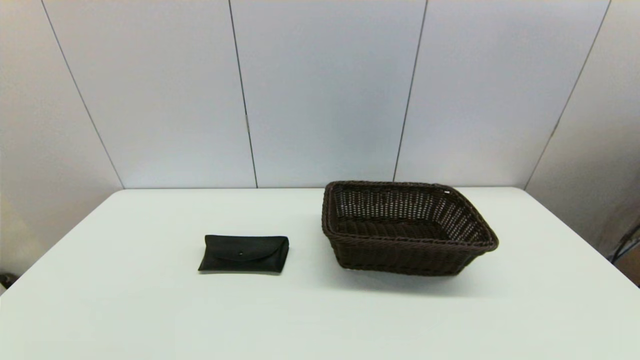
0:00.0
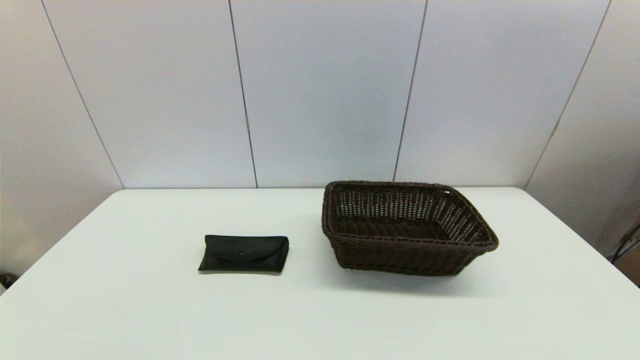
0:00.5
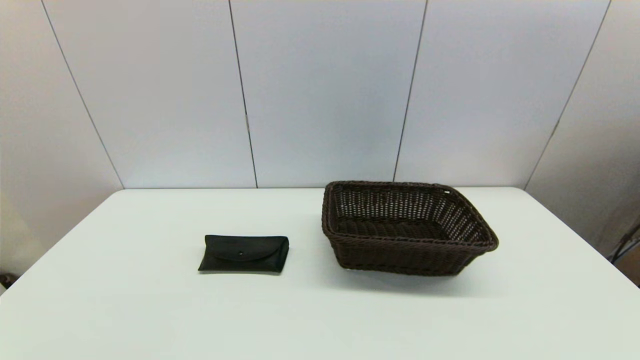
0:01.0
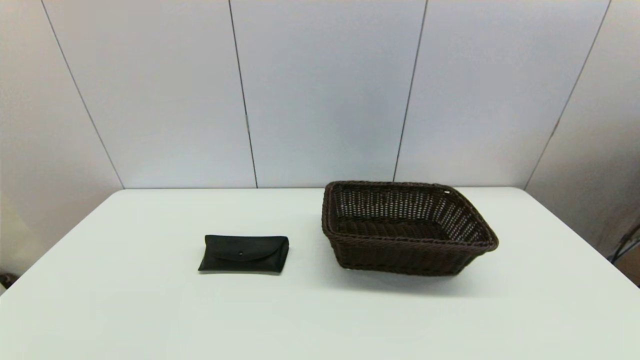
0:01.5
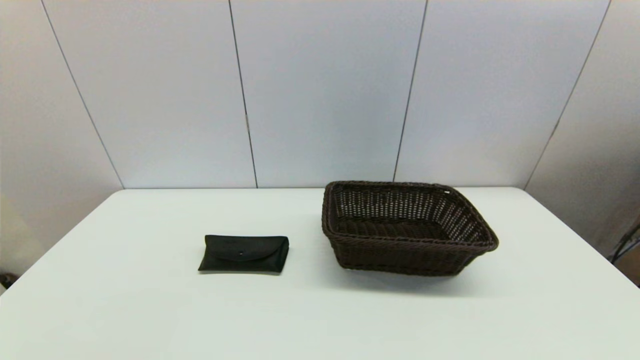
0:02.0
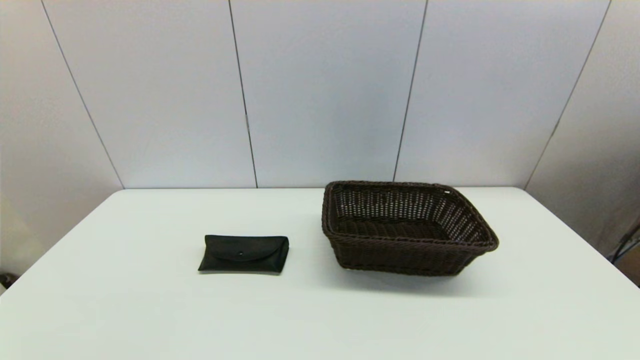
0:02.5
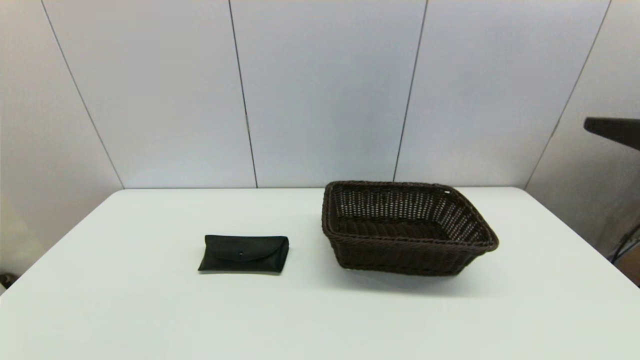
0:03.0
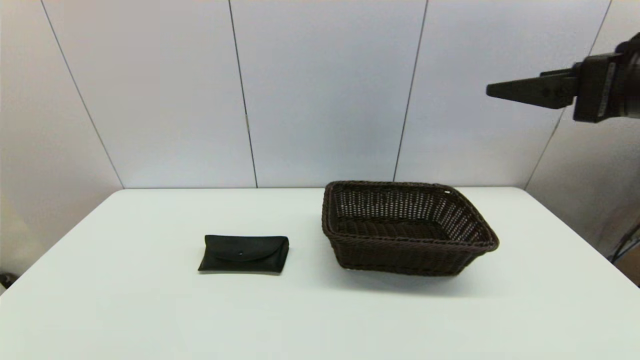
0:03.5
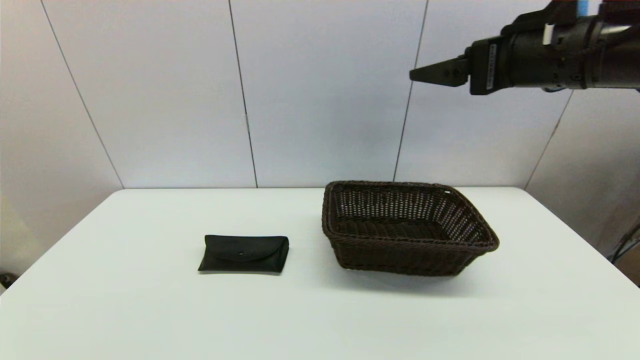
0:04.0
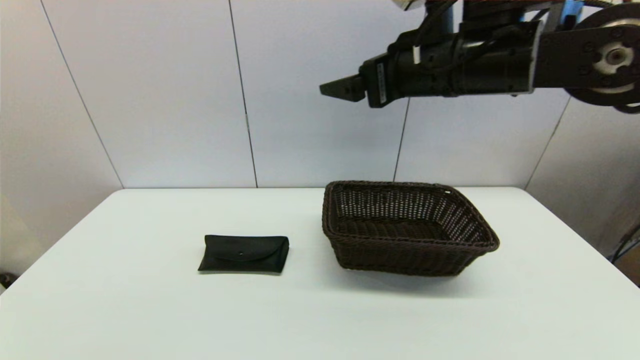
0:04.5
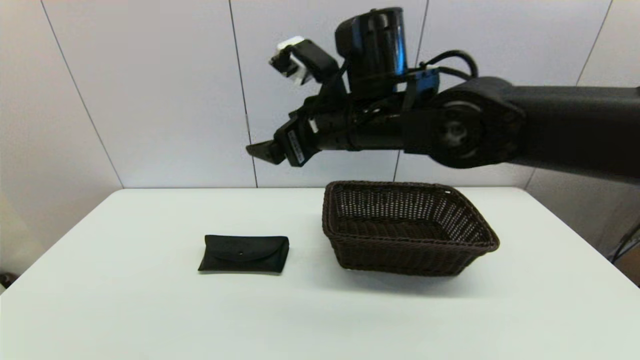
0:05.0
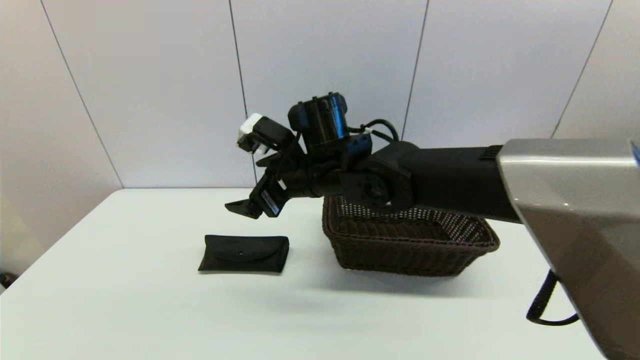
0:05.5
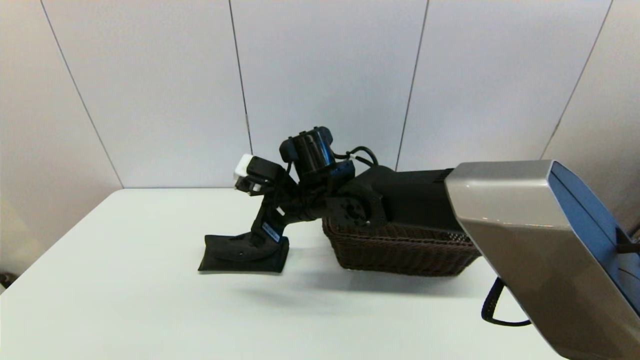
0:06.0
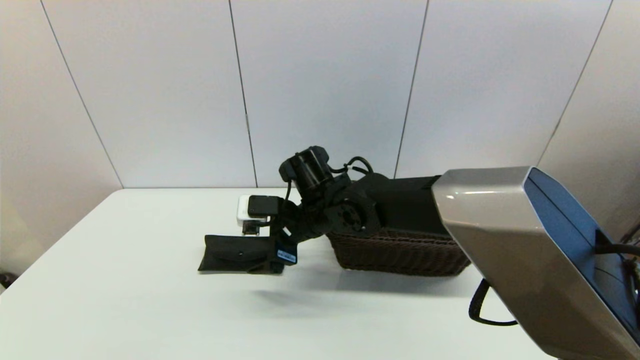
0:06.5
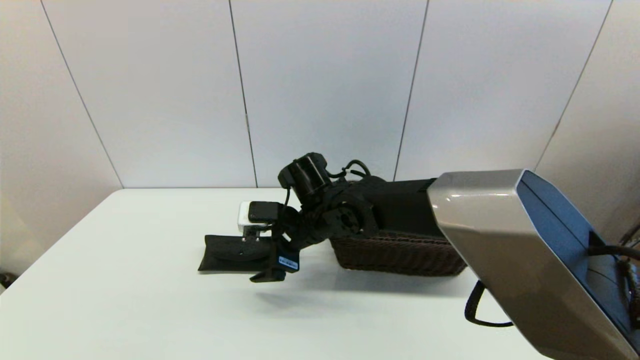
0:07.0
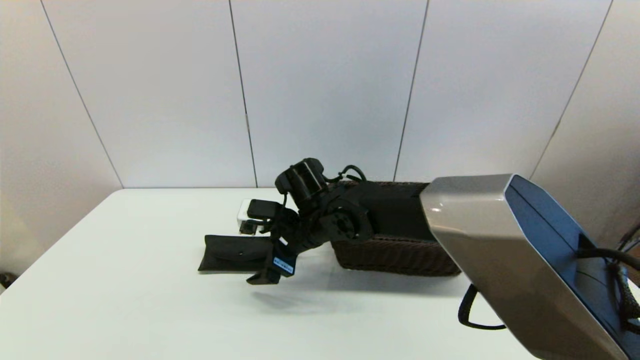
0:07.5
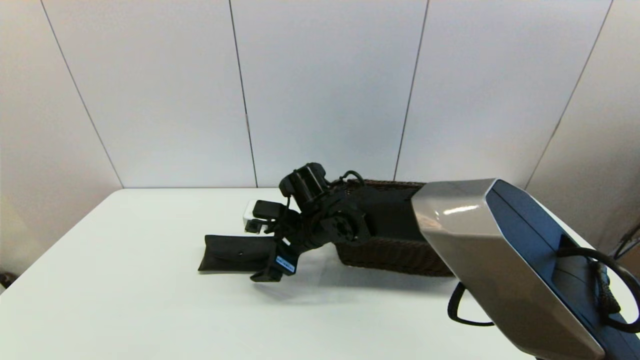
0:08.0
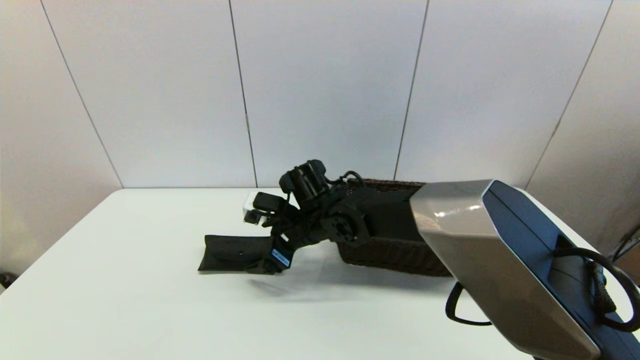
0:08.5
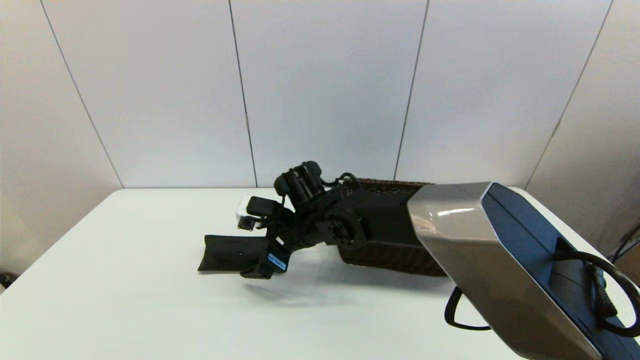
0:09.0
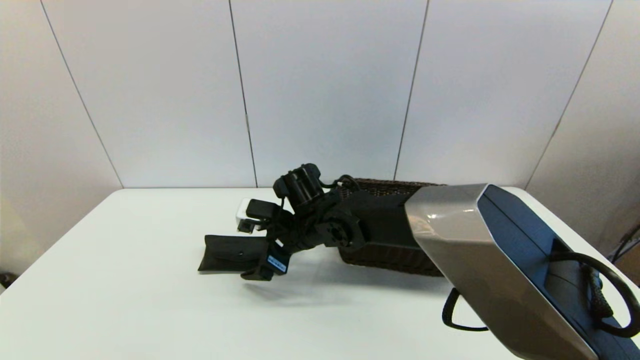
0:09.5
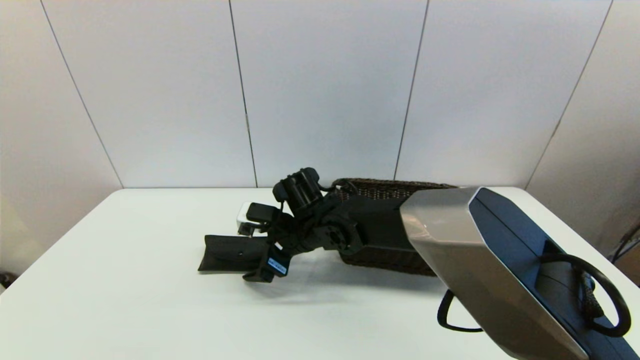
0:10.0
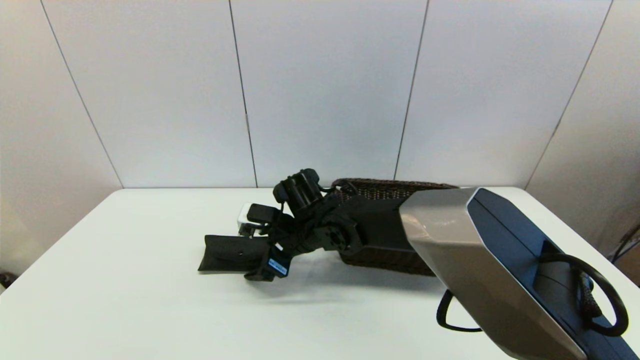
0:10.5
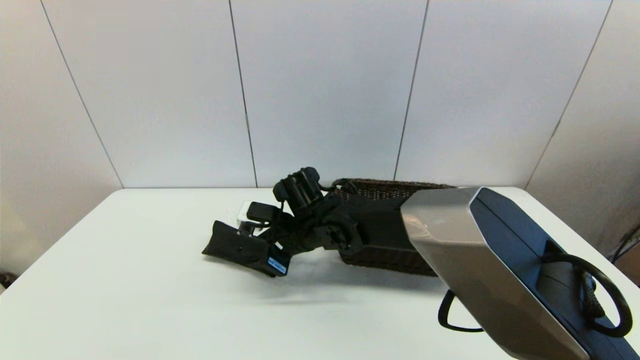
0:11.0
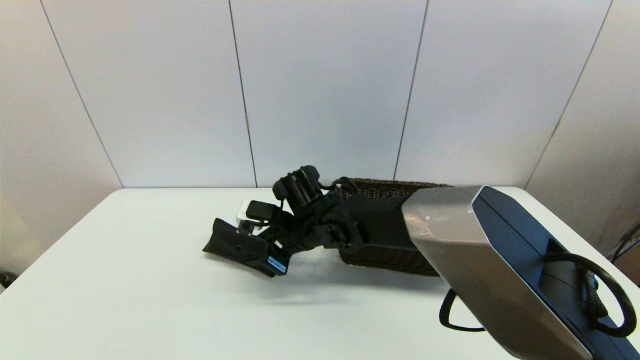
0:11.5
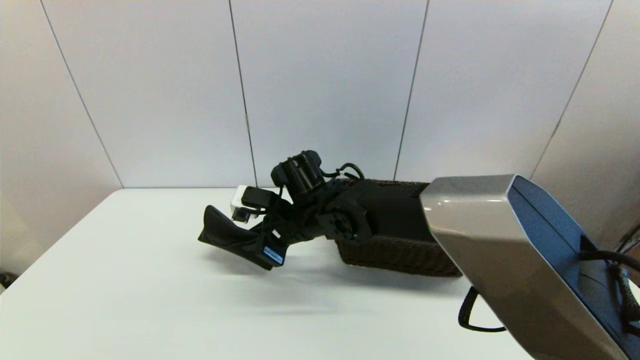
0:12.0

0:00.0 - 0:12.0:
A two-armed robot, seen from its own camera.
Step, 0:03.0 - 0:11.0: Grasp the glasses case with right gripper.
0:02.0 - 0:04.0: The right gripper heads forward, upward and to the left, covering approximately 35 cm.
0:04.0 - 0:06.0: The right gripper shifts approximately 30 cm to the left and downward.
0:06.0 - 0:08.0: The right gripper shifts approximately 5 cm downward.
0:08.0 - 0:10.0: The grippers make only small movements.
0:10.0 - 0:12.0: The right gripper closes up.

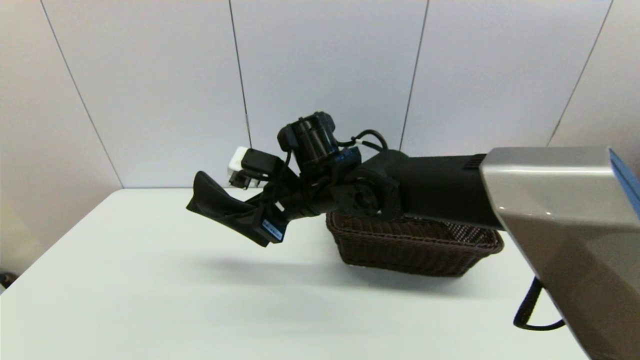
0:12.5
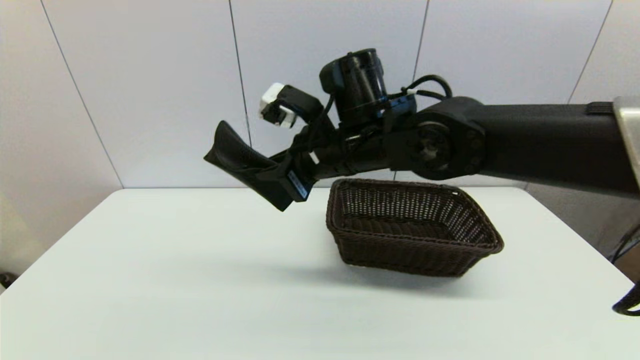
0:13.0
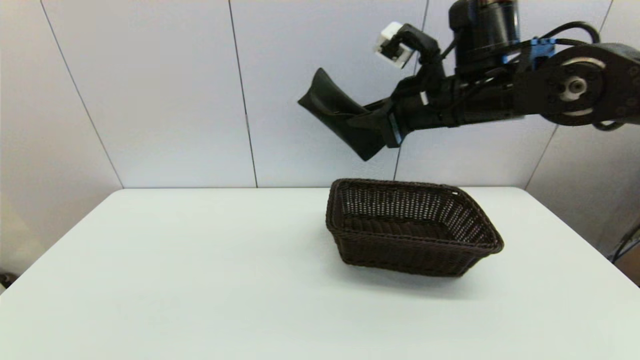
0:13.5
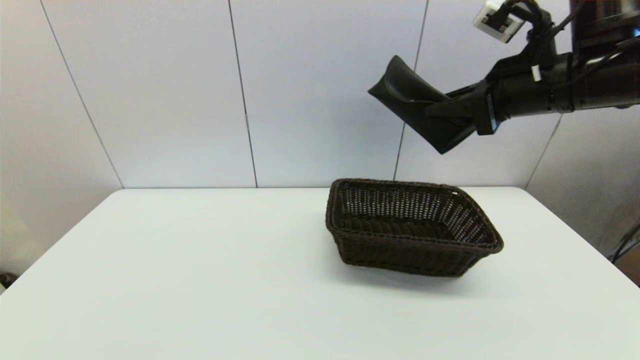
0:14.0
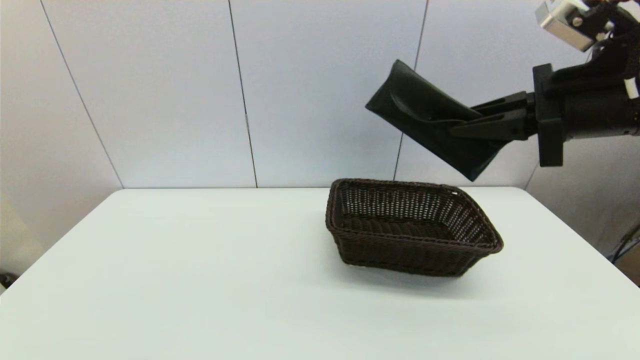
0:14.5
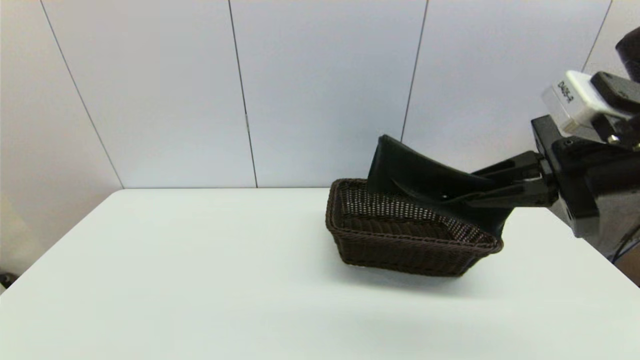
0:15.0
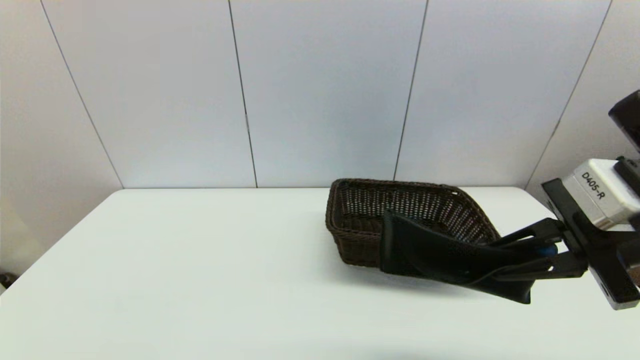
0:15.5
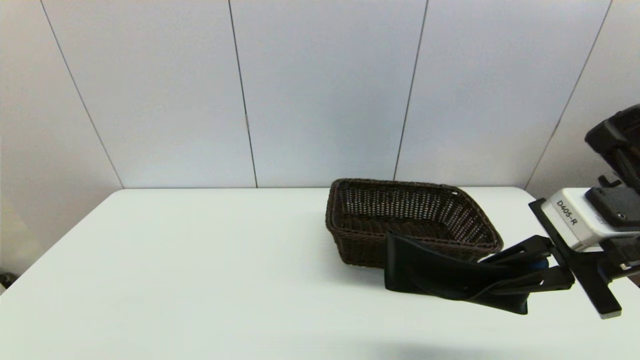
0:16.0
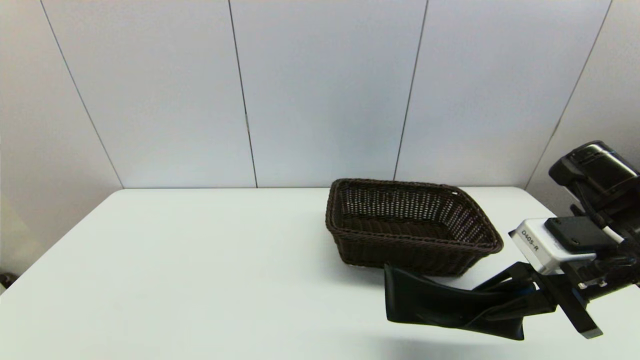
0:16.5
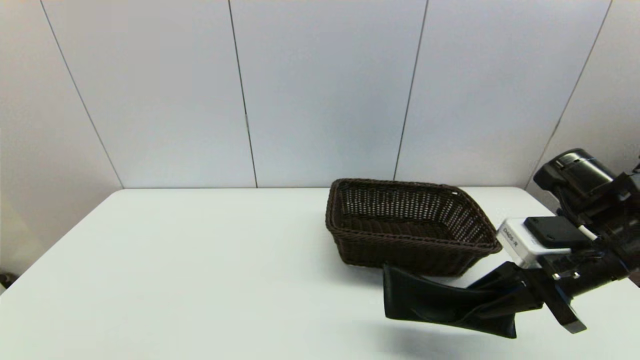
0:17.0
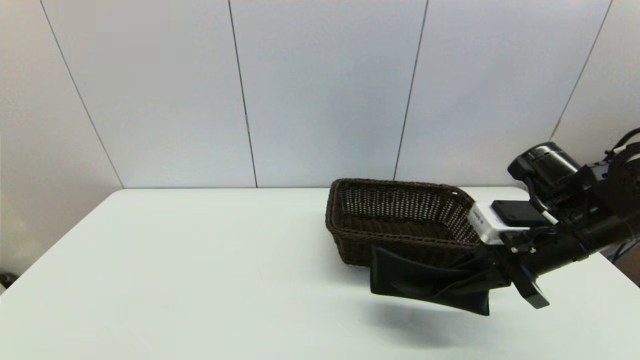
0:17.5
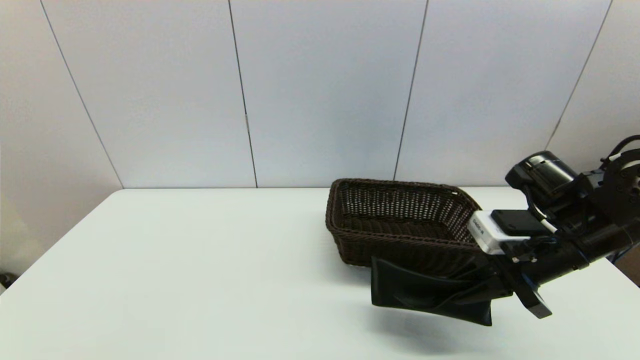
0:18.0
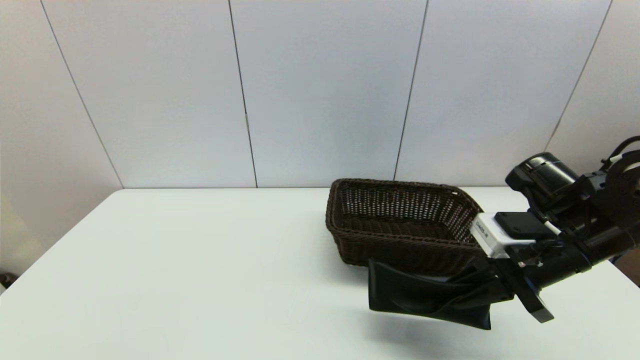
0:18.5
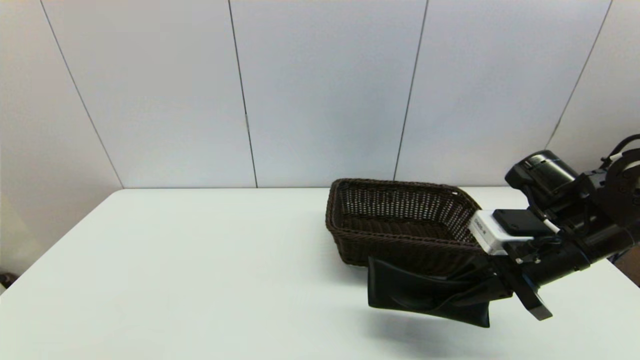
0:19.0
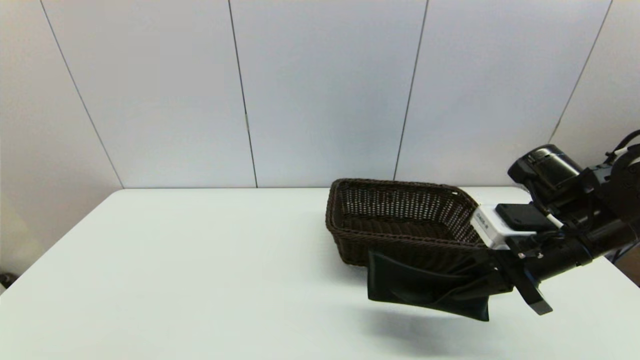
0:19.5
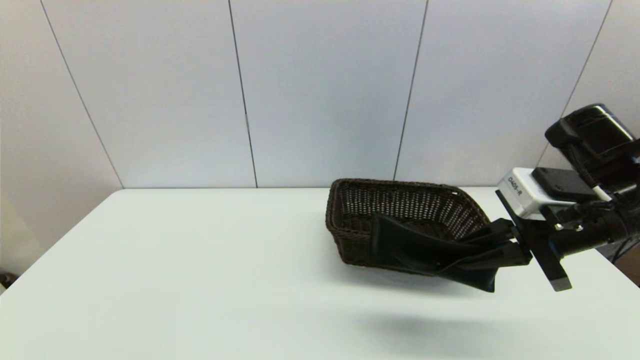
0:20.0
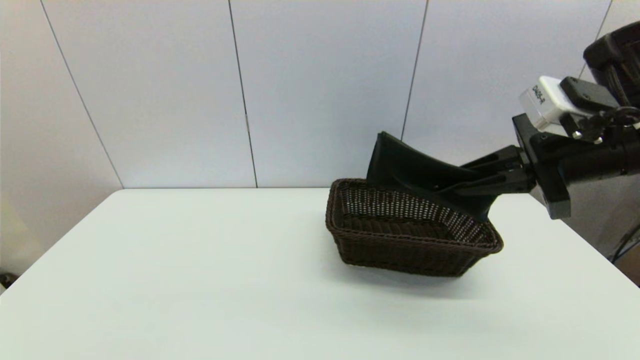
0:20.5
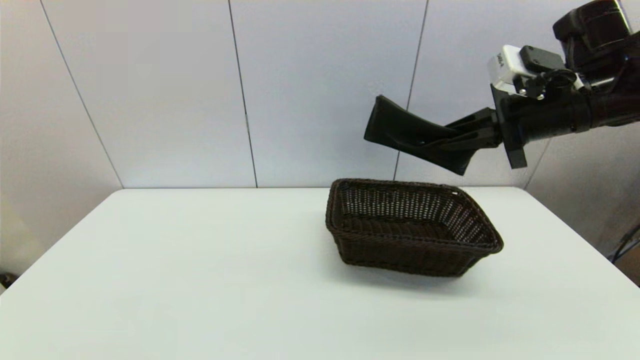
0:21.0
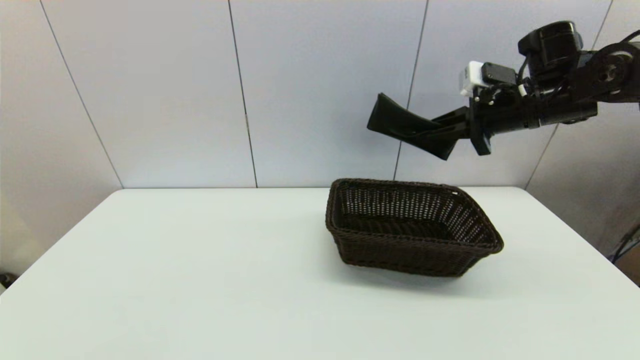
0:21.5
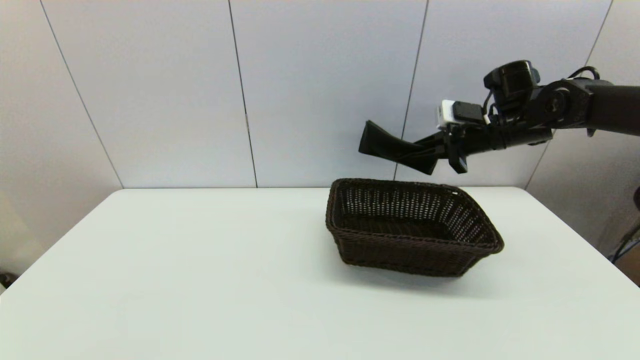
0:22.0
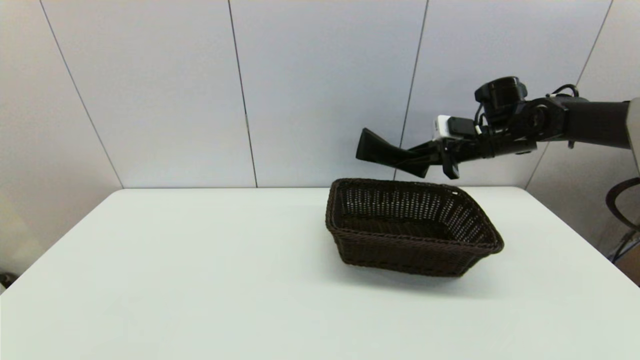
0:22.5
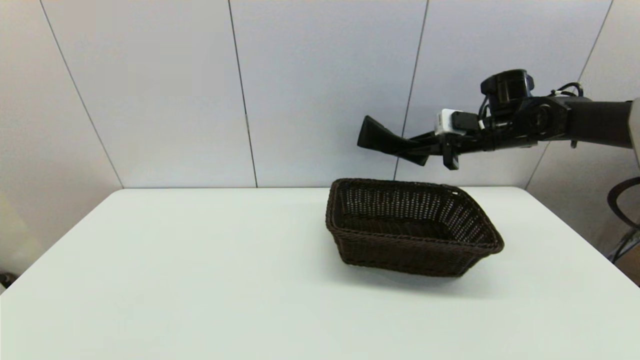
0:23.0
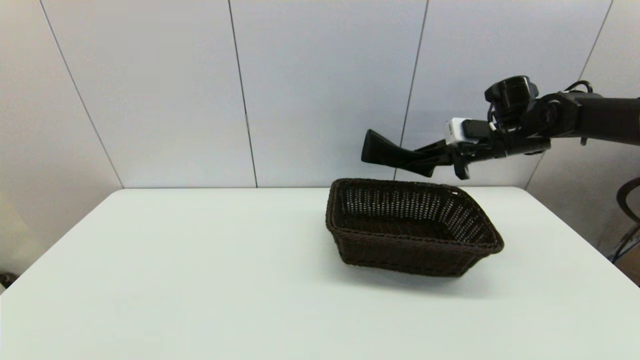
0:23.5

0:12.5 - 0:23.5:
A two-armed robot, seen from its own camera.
0:12.5 - 0:14.5: The right gripper moves to the right and upward, approximately 30 cm.
0:14.5 - 0:16.0: The right gripper shifts roughly 10 cm downward.
0:16.0 - 0:18.0: The right gripper travels downward by approximately 5 cm.
0:18.0 - 0:20.0: The right gripper travels upward by about 5 cm.
0:20.0 - 0:21.5: The right gripper moves forward, some 15 cm.
0:21.5 - 0:23.5: The right gripper travels downward by about 5 cm.
